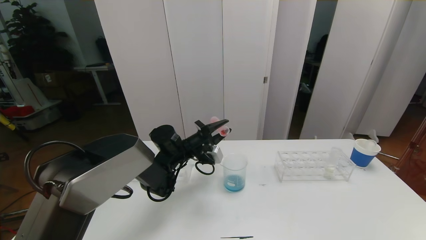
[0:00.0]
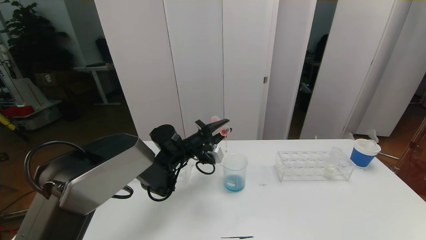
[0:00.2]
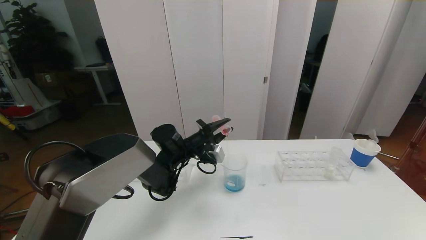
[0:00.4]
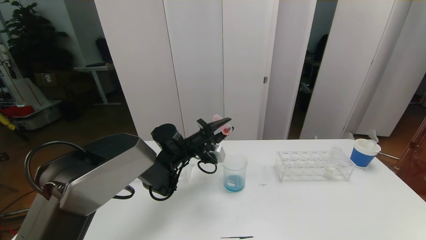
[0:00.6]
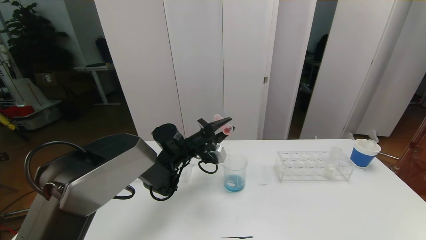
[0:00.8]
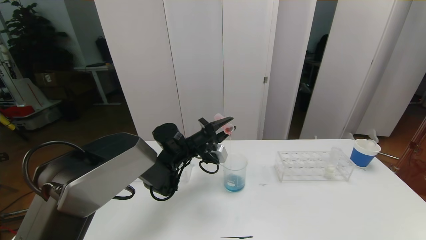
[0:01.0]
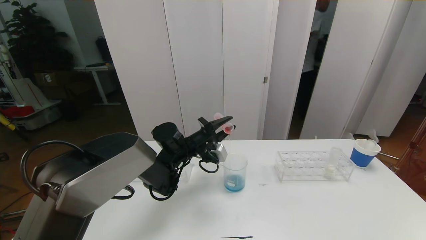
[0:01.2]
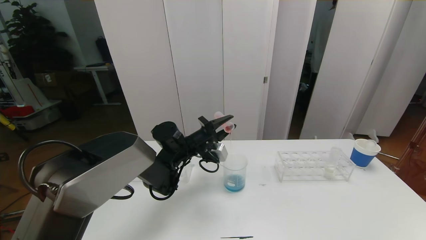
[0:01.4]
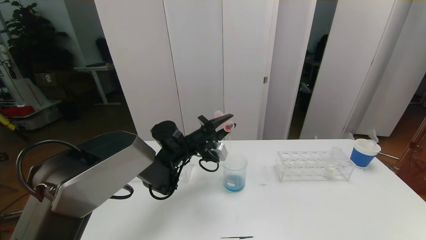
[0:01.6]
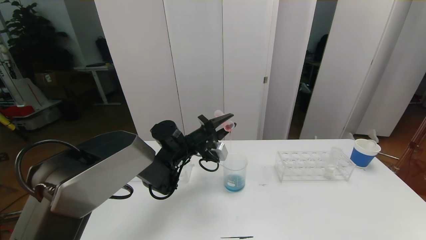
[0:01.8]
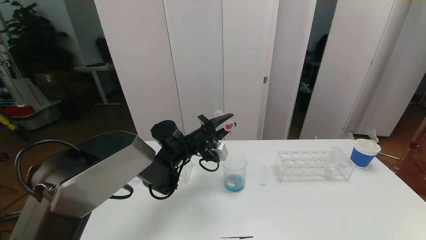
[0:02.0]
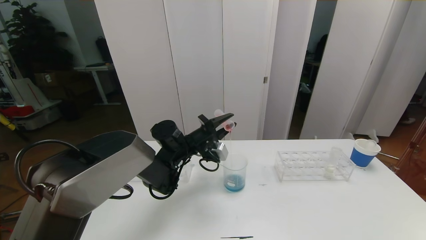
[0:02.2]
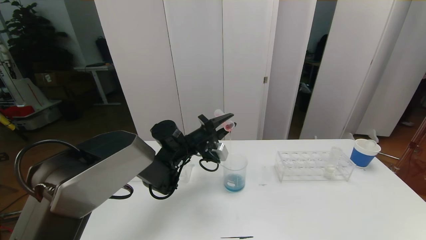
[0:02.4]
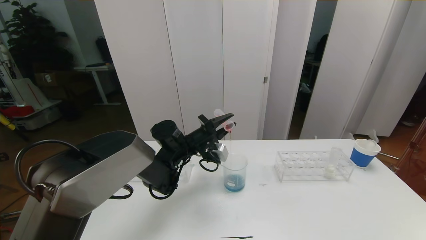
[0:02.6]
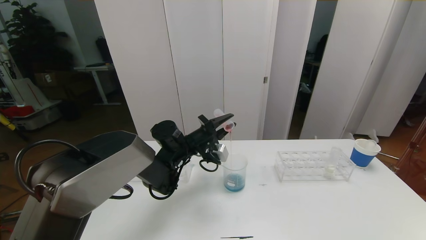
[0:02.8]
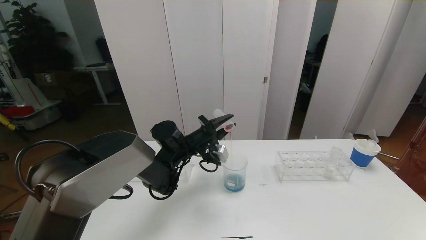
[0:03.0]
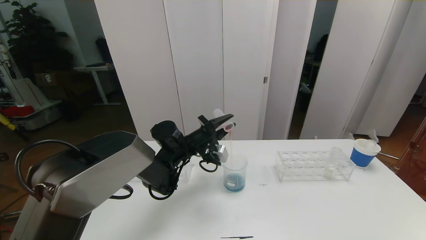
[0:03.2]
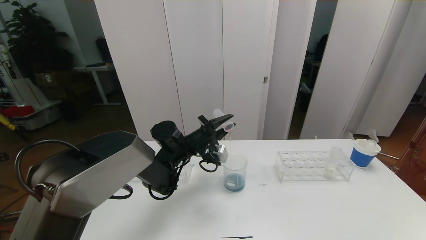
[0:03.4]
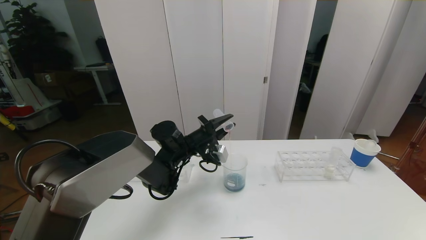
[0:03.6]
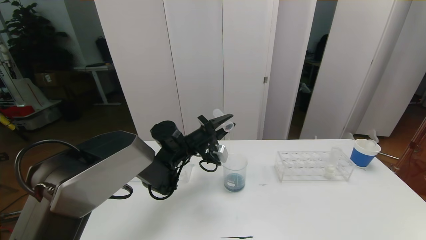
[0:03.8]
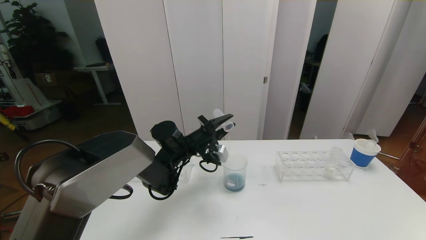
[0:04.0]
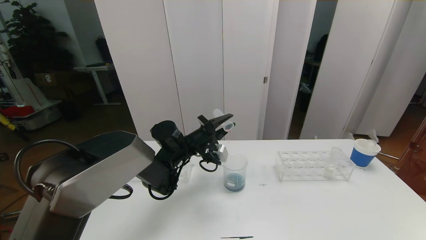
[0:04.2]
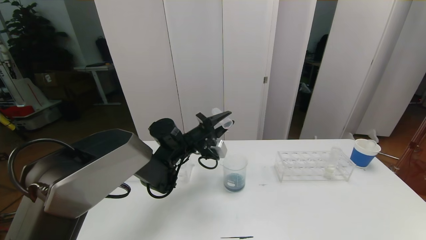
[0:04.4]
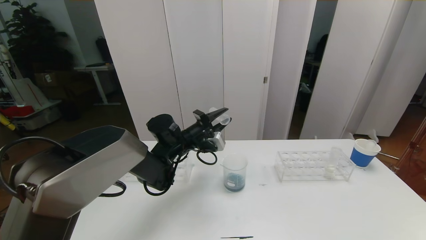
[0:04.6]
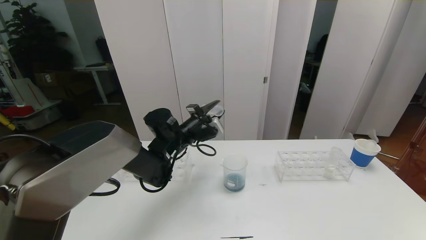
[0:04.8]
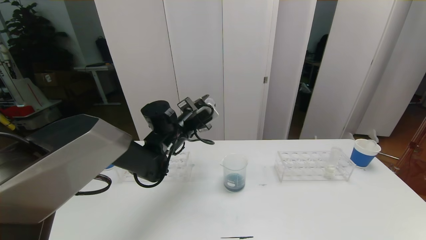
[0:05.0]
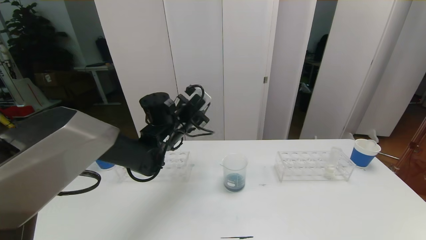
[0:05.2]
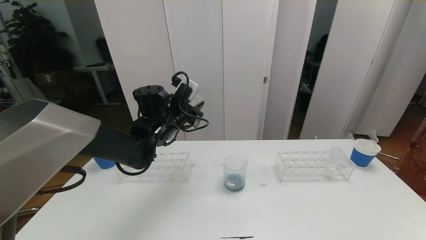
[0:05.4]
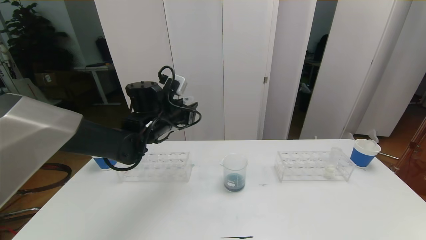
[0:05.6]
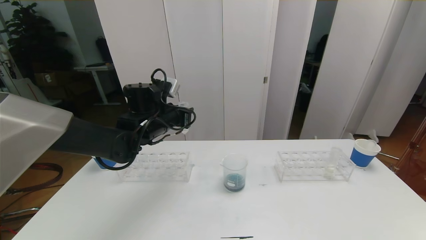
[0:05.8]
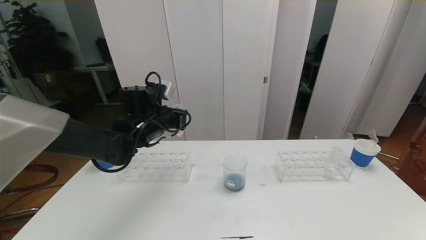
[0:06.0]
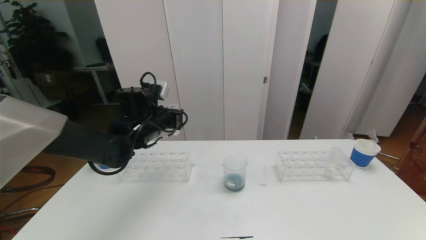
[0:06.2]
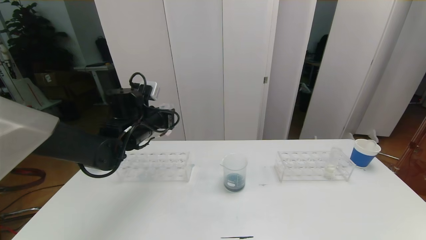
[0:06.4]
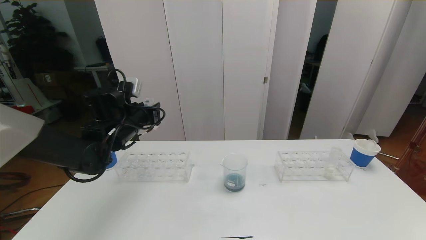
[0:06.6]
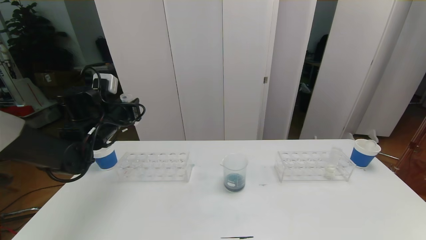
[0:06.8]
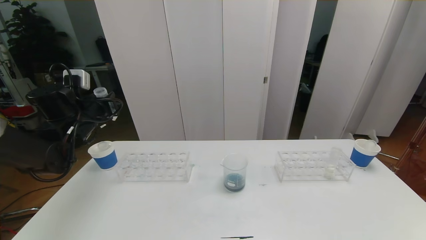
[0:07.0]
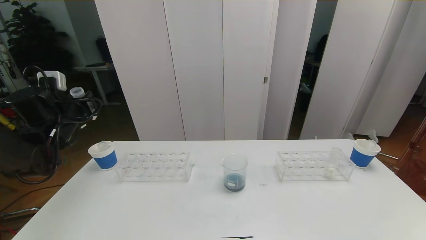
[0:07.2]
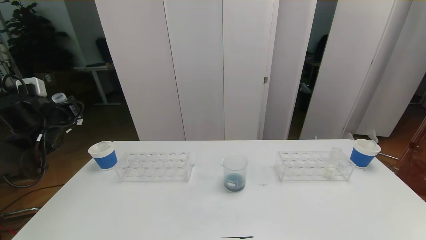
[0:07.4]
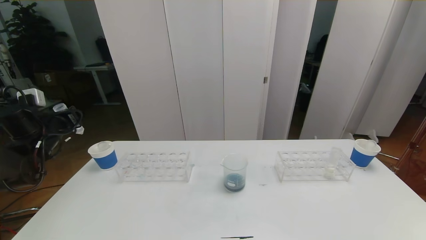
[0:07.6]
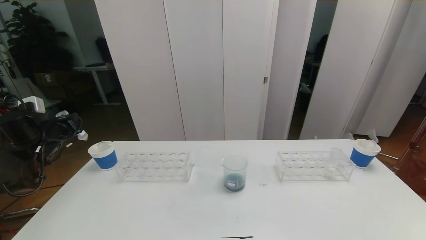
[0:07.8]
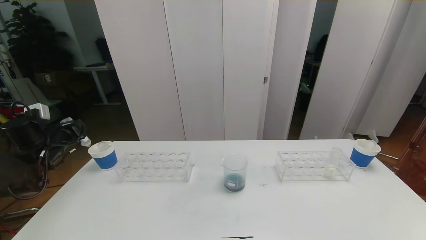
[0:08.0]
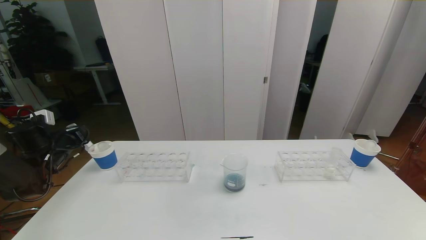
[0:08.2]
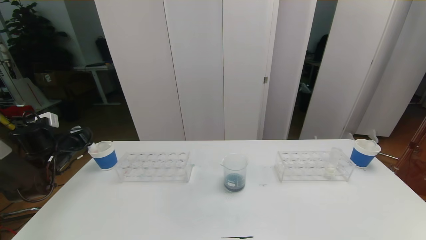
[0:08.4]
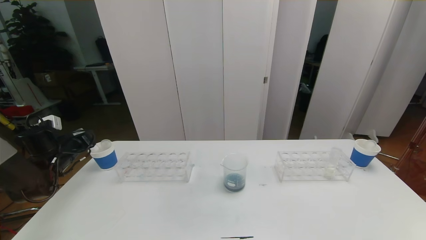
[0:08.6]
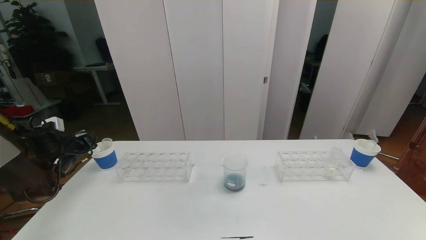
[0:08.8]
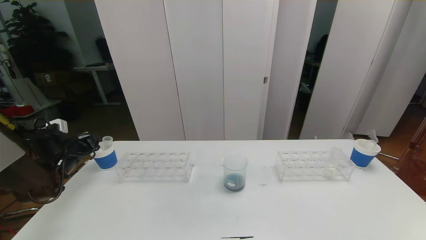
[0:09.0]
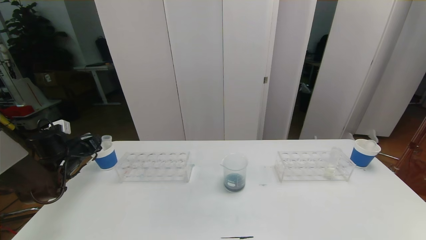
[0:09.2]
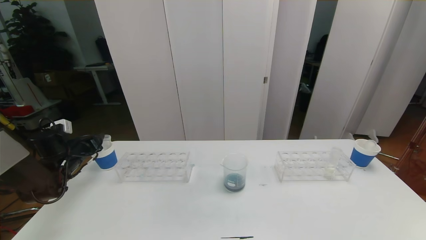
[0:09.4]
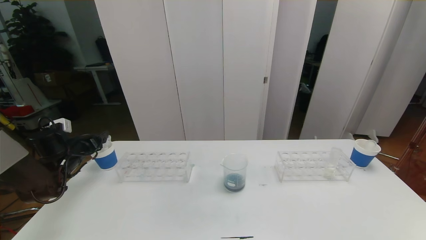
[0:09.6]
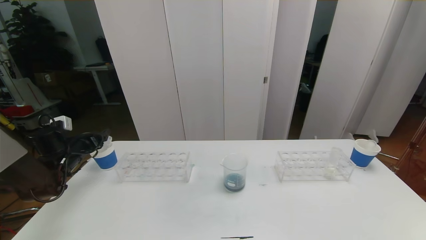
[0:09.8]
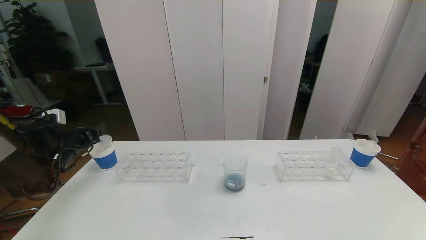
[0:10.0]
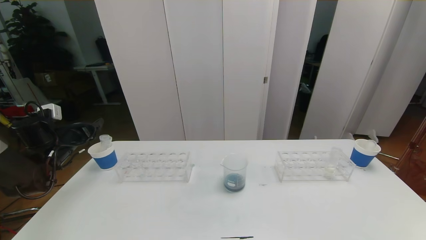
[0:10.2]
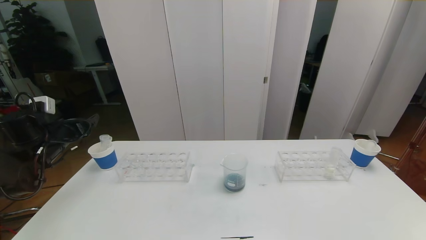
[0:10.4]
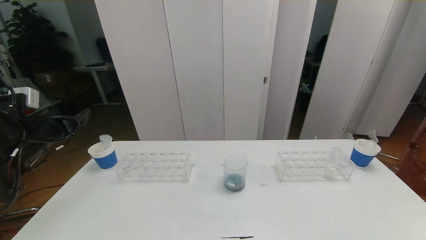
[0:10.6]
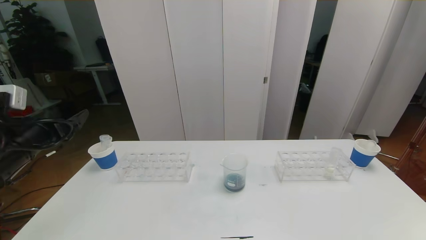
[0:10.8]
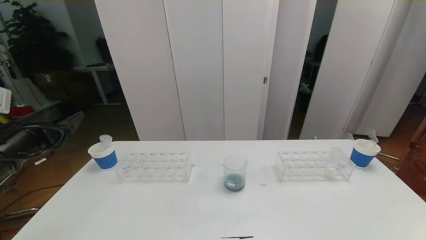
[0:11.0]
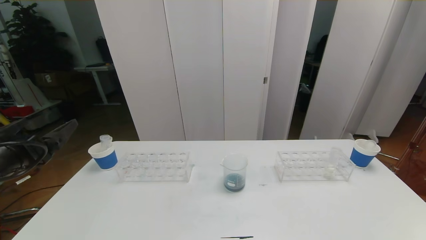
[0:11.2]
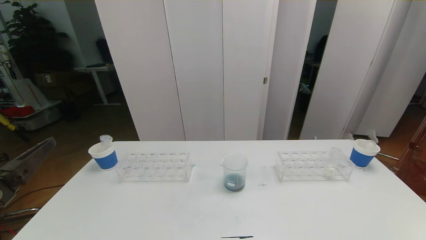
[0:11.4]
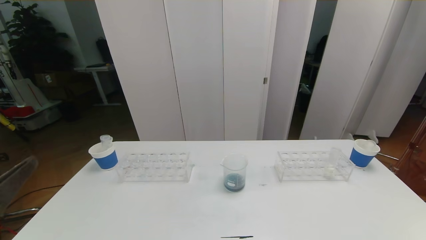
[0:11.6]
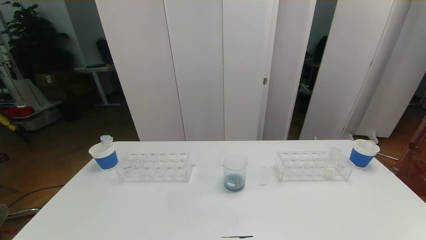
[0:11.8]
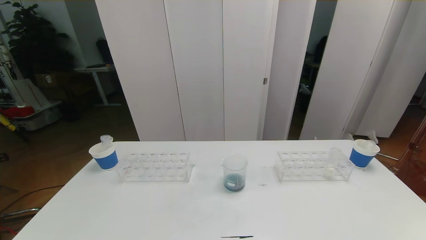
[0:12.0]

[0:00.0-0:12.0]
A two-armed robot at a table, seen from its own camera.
Task of the whole recording: pick up the test tube with red pigment the test tube with blue pigment and the test tube with white pigment by grippers and pour them into the beaker.
0:00.0 to 0:01.6: The grippers stay close to where they were, moving slightly.
0:01.6 to 0:03.0: Both grippers stay put.
0:03.0 to 0:04.4: Both grippers stay about where they are.
0:04.4 to 0:06.0: The left gripper shifts some 10 cm to the left and upward.
0:06.0 to 0:07.6: The left gripper heads to the left, covering about 25 cm.
0:07.6 to 0:09.0: The left gripper heads downward, covering about 10 cm.
0:09.0 to 0:10.4: The left gripper goes approximately 10 cm upward, and opens up.
0:10.4 to 0:12.0: The left gripper heads backward, covering approximately 40 cm.

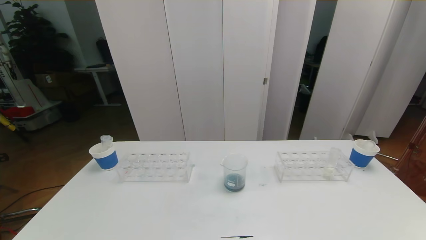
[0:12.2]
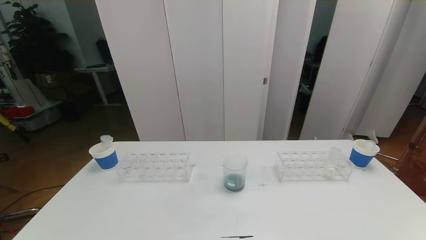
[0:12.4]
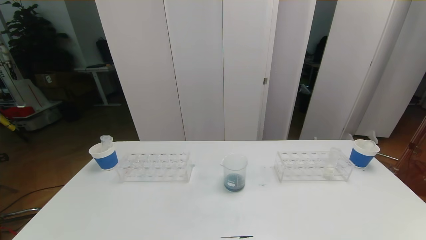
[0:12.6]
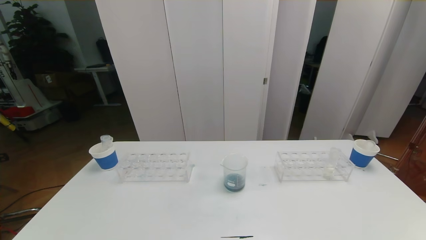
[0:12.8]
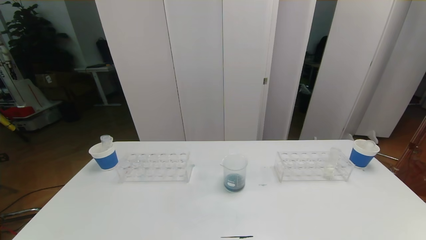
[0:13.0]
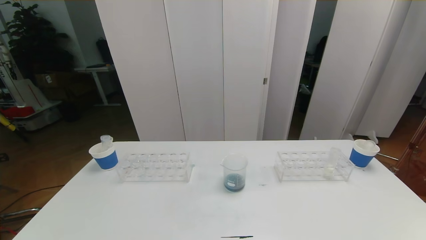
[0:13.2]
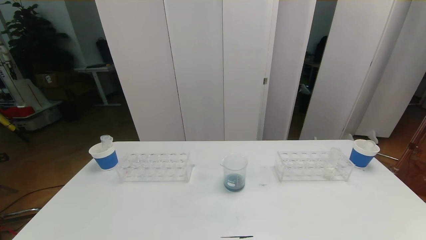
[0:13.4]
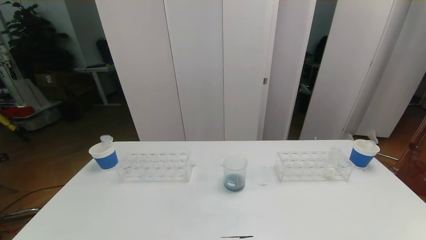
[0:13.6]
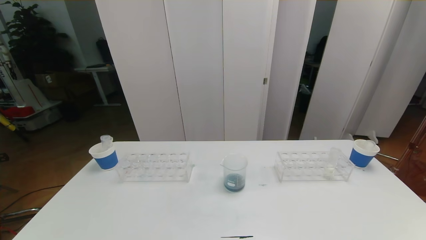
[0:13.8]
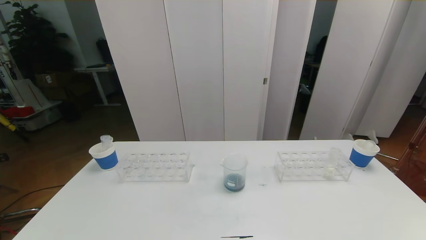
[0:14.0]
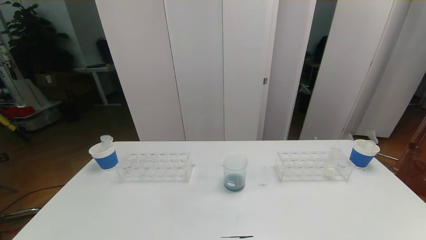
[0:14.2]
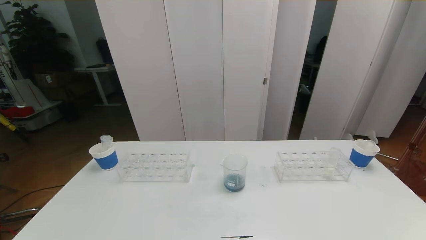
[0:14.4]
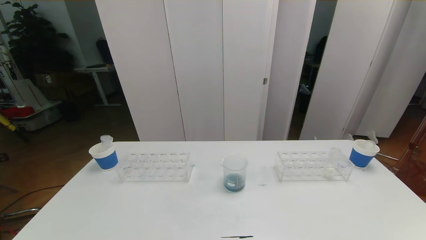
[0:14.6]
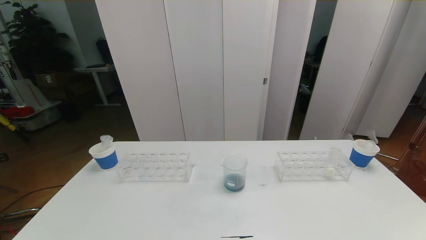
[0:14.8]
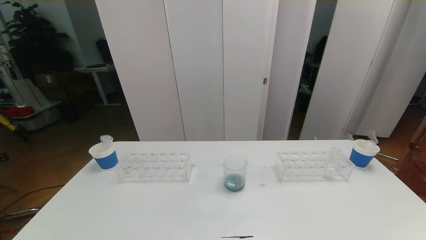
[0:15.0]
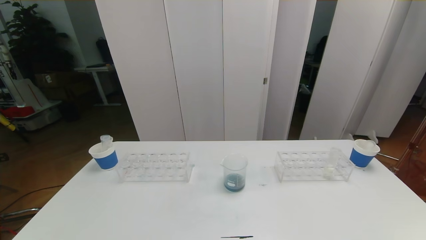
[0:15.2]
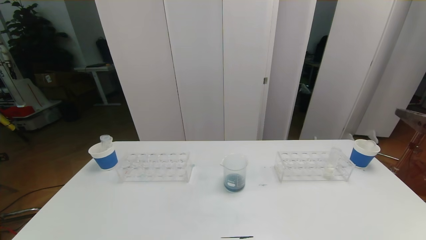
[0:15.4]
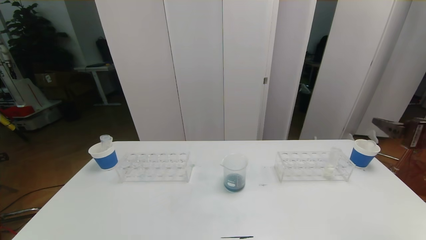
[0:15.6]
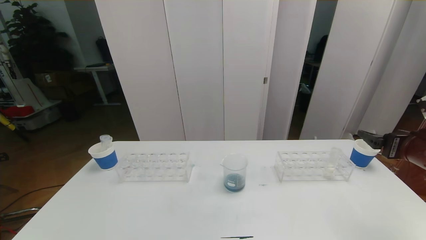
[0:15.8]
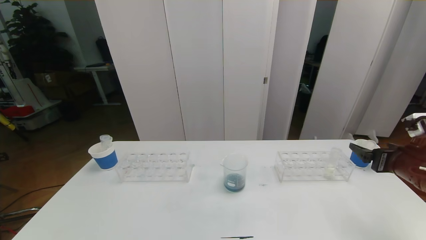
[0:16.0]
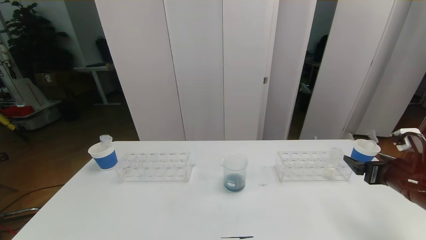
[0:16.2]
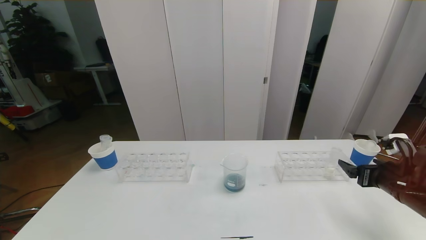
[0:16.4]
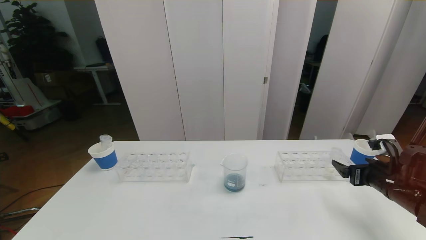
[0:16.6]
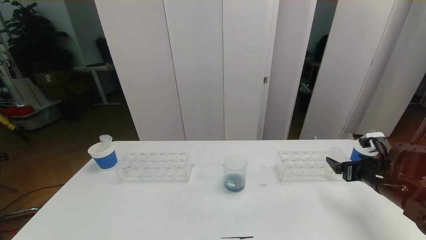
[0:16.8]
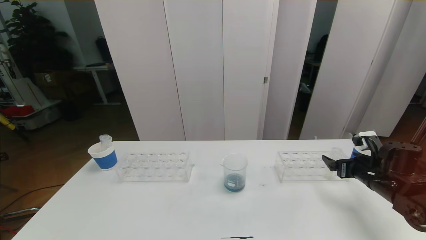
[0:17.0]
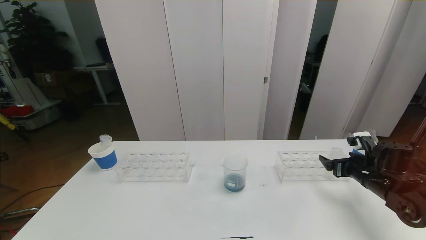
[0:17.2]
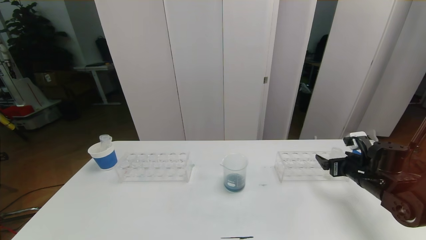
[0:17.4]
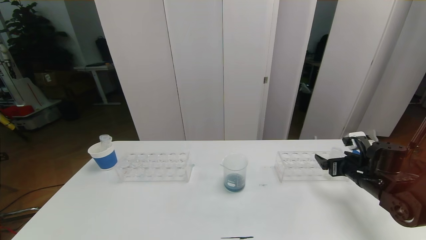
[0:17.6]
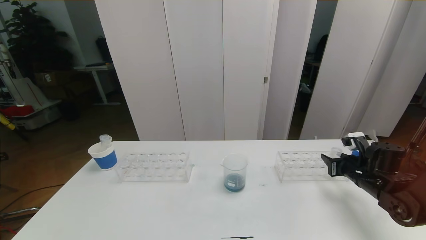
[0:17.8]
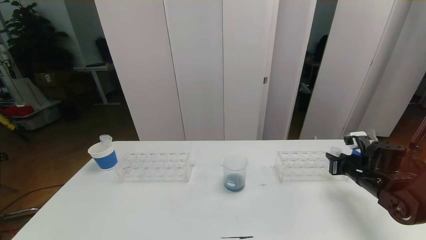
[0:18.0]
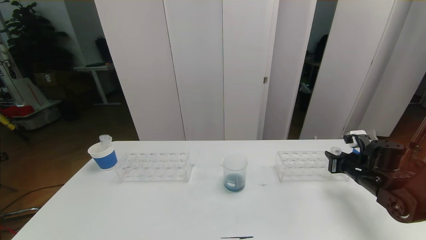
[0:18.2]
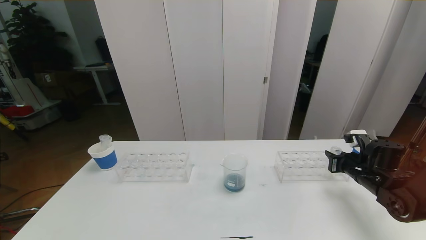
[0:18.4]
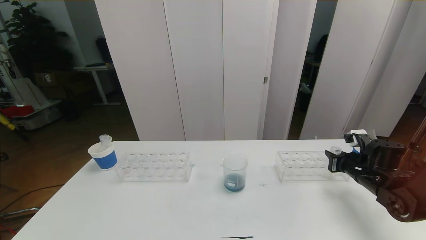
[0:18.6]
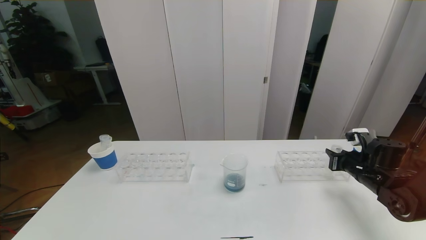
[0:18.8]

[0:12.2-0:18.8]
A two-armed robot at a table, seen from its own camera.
Task of the whole recording: pick up the test tube with red pigment the test tube with blue pigment and the test tube with white pigment by grippers and pour them into the beaker.
0:15.4 to 0:17.2: The right gripper goes approximately 25 cm downward and forward.
0:17.2 to 0:18.8: The right gripper closes up.
